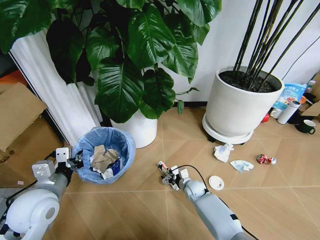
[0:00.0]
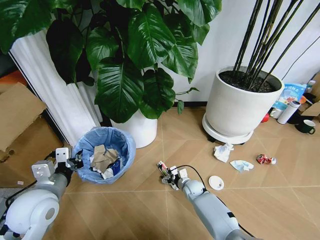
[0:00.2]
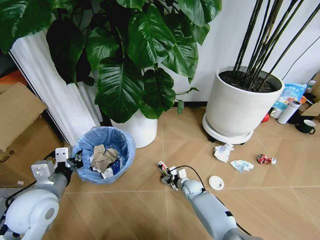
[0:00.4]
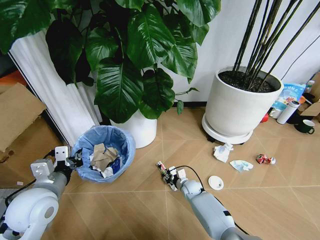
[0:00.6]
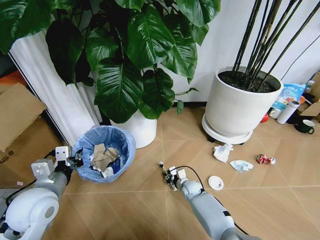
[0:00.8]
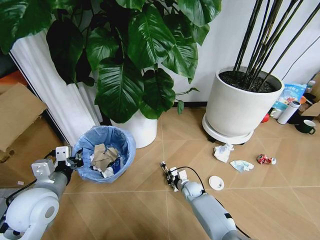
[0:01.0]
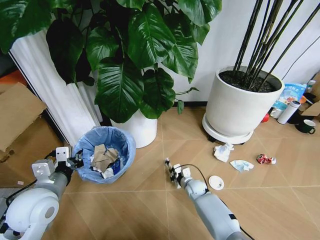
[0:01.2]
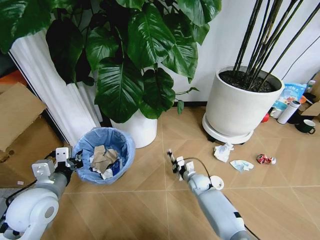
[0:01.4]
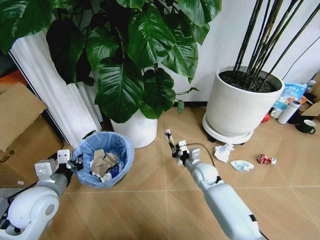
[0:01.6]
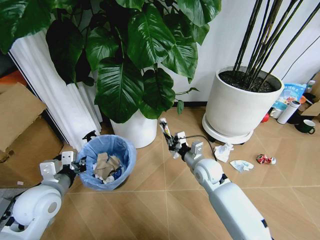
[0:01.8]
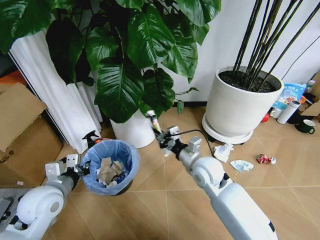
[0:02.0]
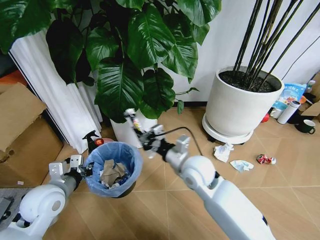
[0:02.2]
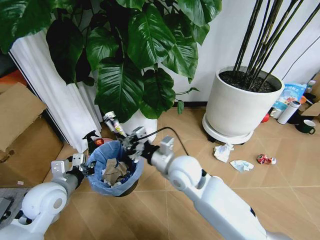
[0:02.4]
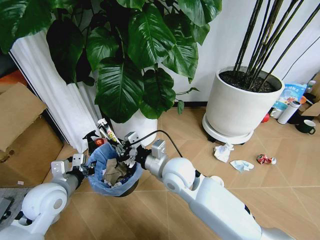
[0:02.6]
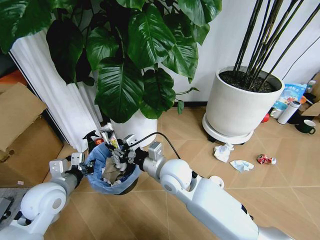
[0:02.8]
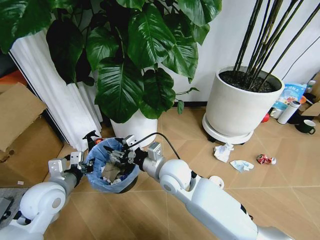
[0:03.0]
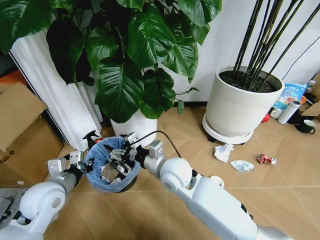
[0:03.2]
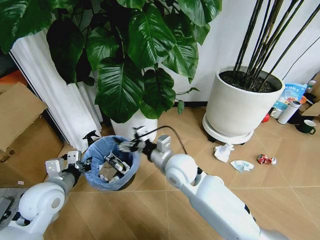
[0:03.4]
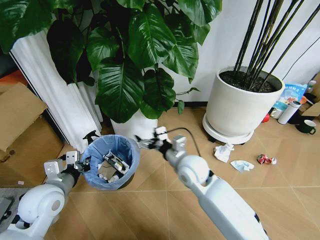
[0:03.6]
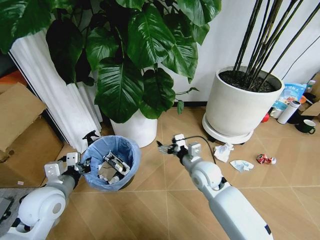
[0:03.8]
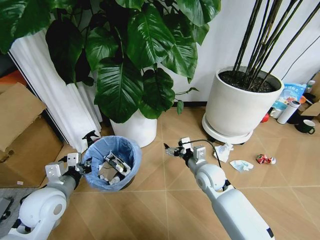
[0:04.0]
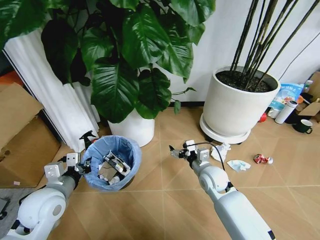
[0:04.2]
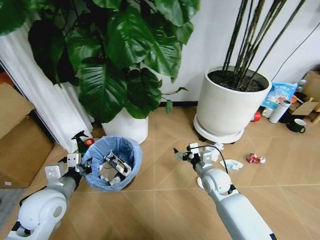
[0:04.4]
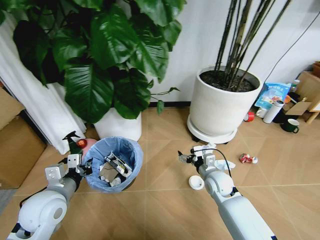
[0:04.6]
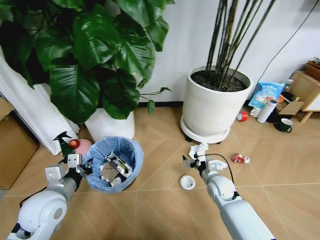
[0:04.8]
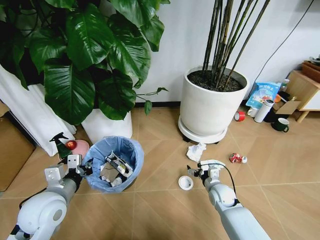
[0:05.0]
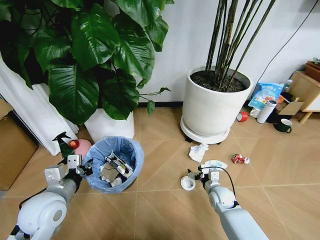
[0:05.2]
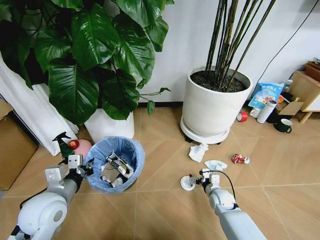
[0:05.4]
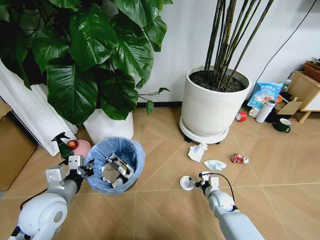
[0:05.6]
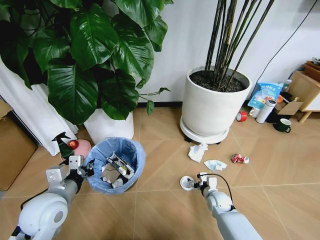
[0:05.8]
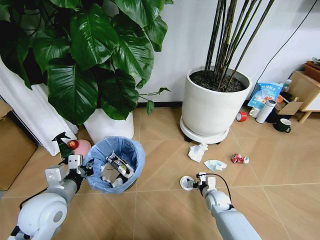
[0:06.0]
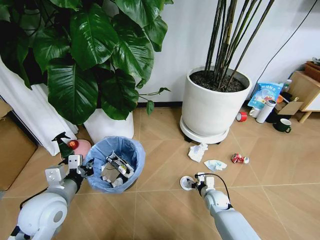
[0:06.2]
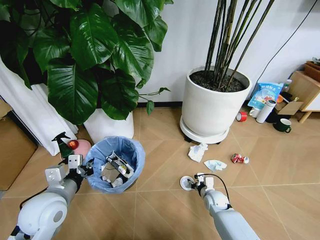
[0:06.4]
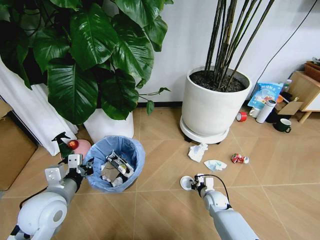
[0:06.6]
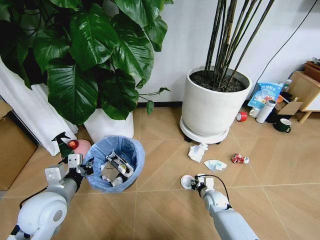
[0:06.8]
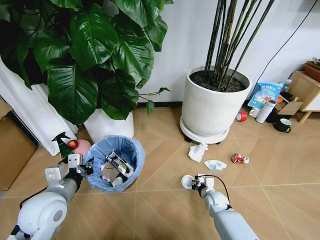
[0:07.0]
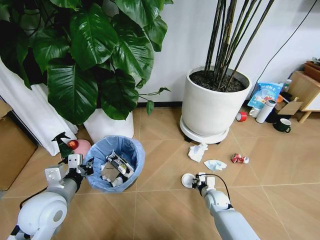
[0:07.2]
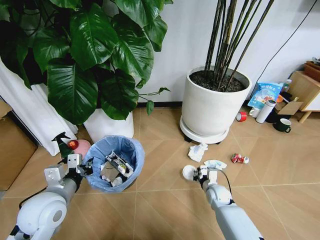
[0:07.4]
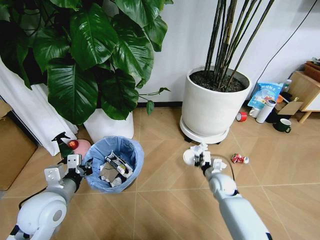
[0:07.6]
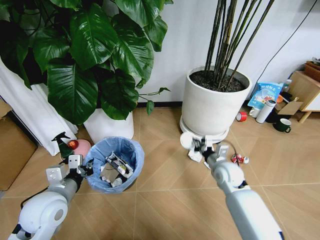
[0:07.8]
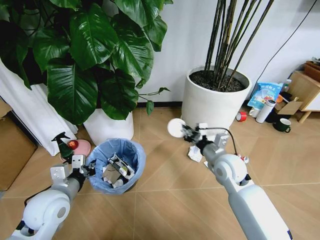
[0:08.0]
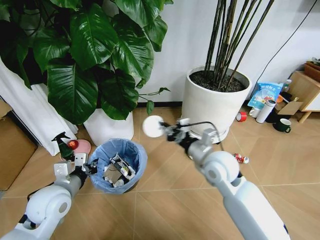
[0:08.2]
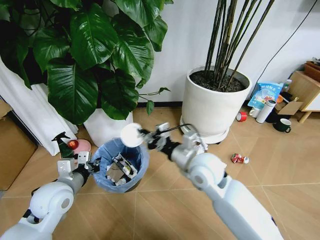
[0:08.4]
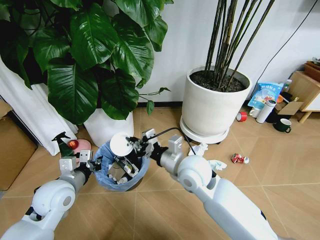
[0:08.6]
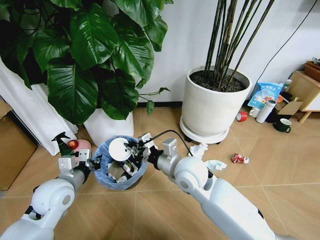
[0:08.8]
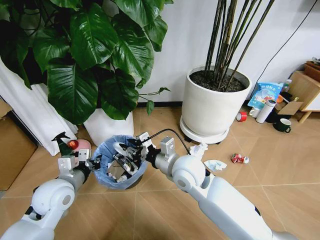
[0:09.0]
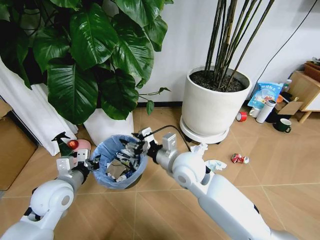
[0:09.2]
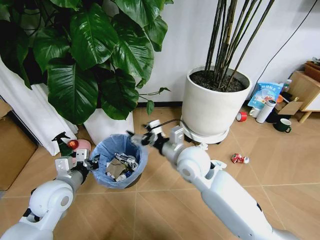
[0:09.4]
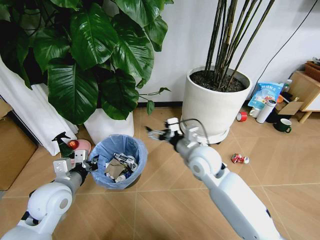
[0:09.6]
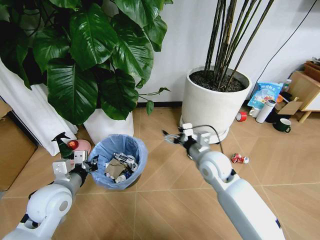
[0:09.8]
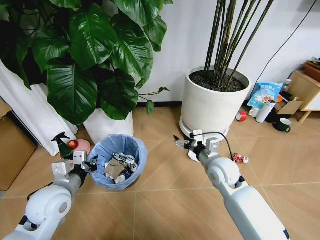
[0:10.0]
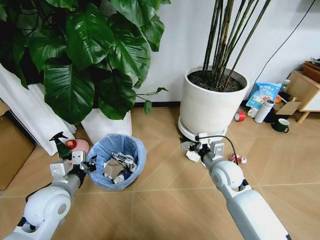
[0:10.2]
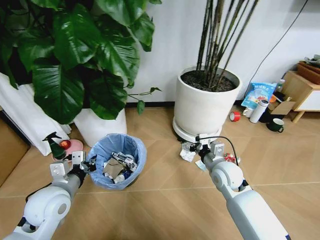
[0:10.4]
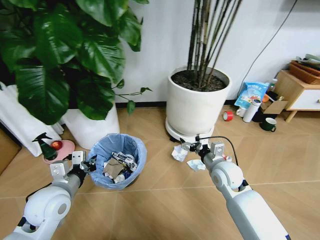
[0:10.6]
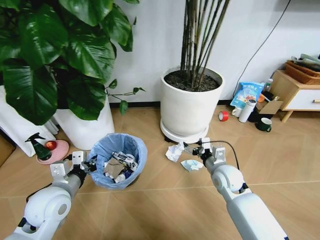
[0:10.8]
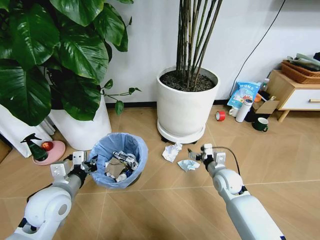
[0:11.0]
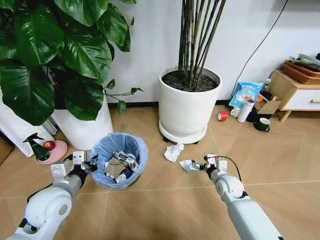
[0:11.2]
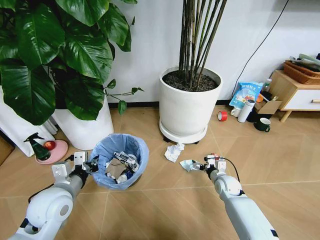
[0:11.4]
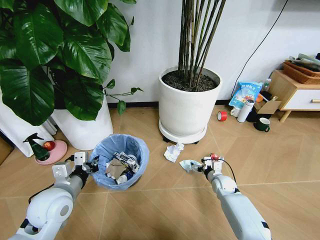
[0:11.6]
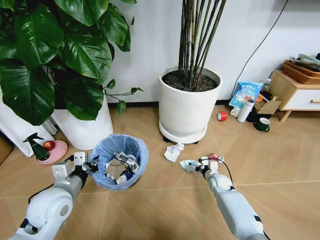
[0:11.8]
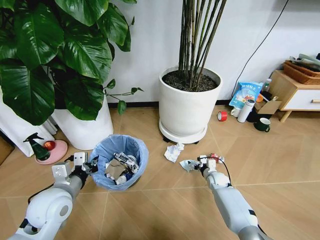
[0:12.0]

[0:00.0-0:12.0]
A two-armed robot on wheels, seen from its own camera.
Task of the whole recording: Pick up the trash bin and place the garbage on the floor into it.
0:00.0 to 0:01.6: The right gripper goes about 10 cm upward, and closes up.
0:01.6 to 0:03.0: The right gripper heads upward, to the left and backward, covering roughly 25 cm, and opens up.
0:03.0 to 0:04.4: The right gripper travels to the right and downward by about 20 cm, and opens up.
0:04.4 to 0:06.0: The right gripper heads downward, covering roughly 15 cm.
0:06.0 to 0:07.6: The right gripper travels upward by roughly 10 cm, and closes its fingers.
0:07.6 to 0:09.0: The right gripper moves upward and to the left, approximately 30 cm.
0:09.0 to 0:10.4: The right gripper shifts roughly 15 cm to the right and downward, and opens.
0:10.4 to 0:12.0: The right gripper goes about 20 cm downward.

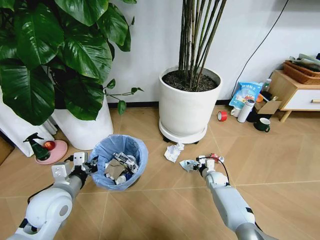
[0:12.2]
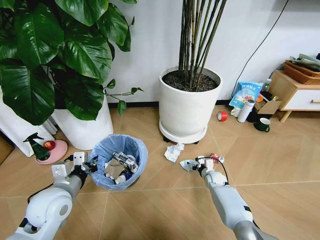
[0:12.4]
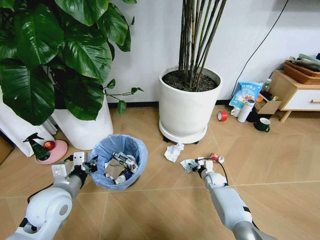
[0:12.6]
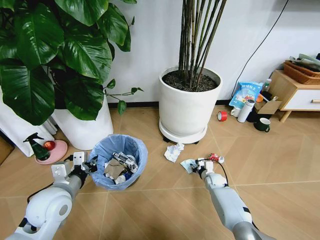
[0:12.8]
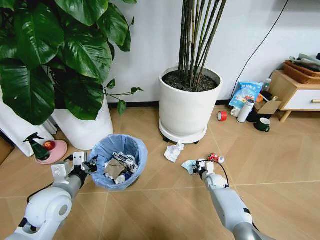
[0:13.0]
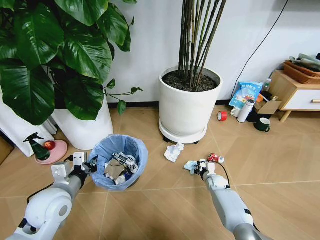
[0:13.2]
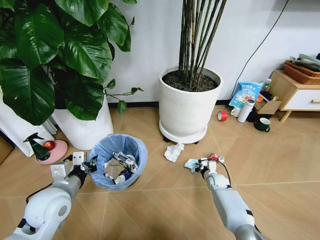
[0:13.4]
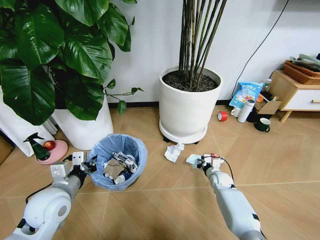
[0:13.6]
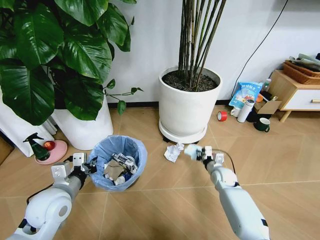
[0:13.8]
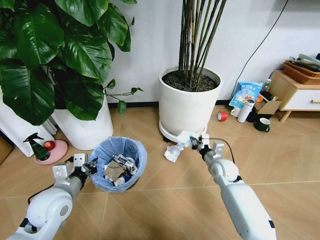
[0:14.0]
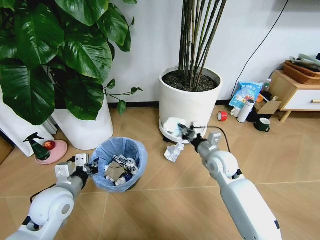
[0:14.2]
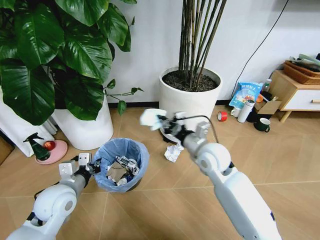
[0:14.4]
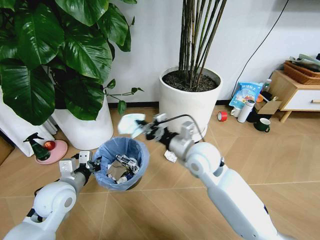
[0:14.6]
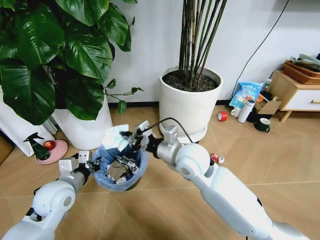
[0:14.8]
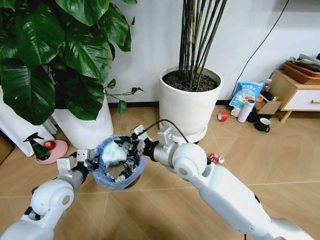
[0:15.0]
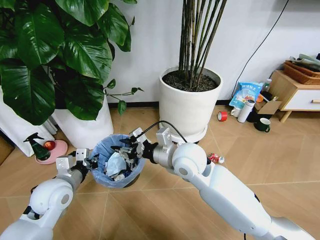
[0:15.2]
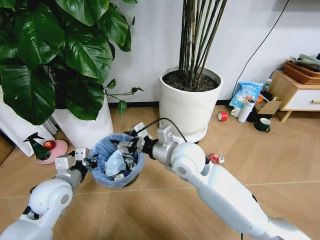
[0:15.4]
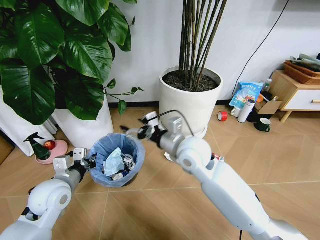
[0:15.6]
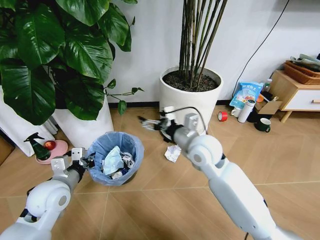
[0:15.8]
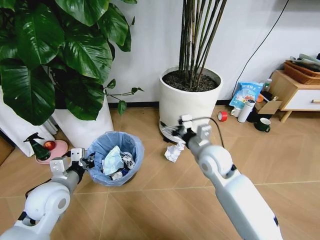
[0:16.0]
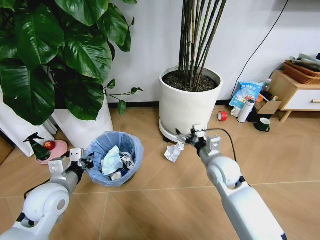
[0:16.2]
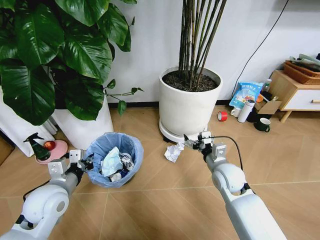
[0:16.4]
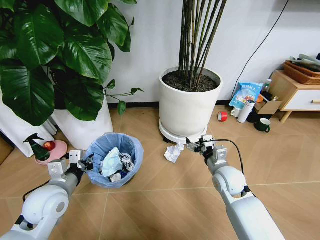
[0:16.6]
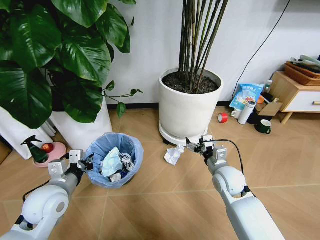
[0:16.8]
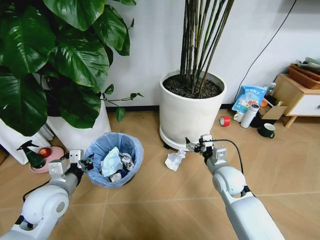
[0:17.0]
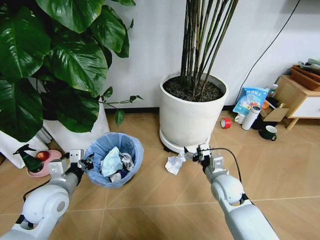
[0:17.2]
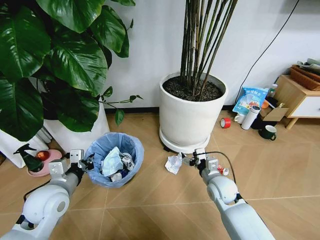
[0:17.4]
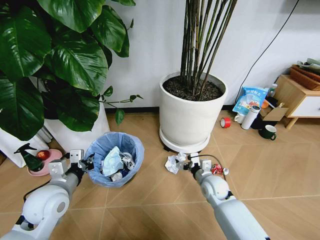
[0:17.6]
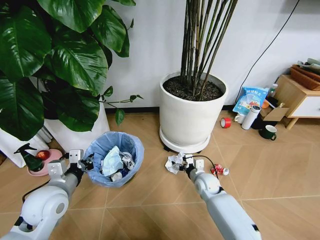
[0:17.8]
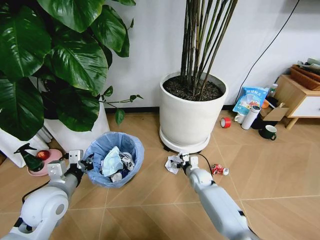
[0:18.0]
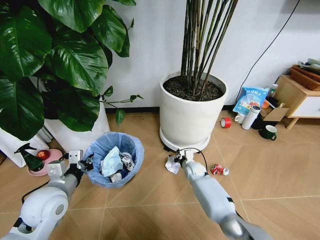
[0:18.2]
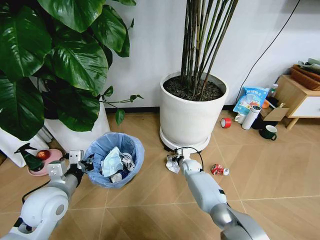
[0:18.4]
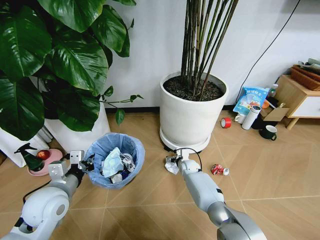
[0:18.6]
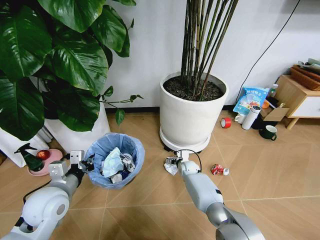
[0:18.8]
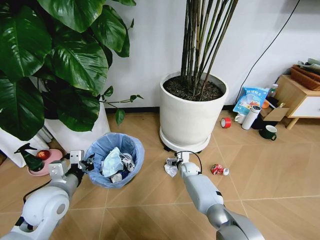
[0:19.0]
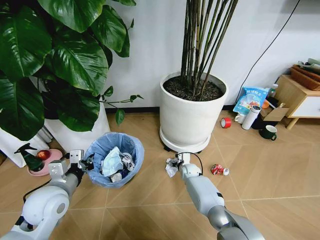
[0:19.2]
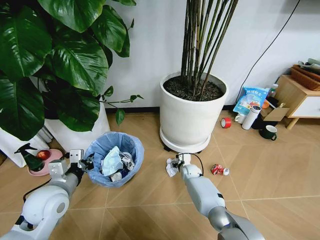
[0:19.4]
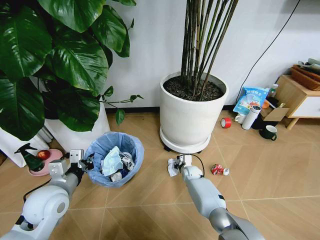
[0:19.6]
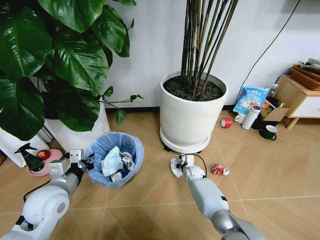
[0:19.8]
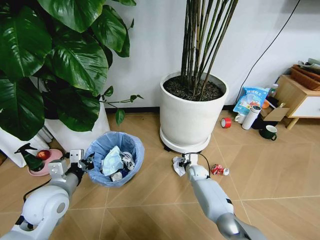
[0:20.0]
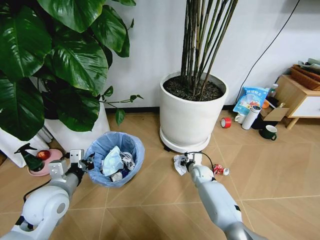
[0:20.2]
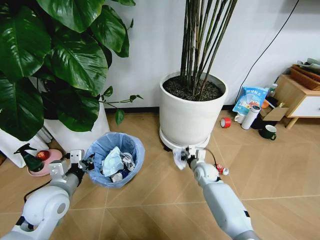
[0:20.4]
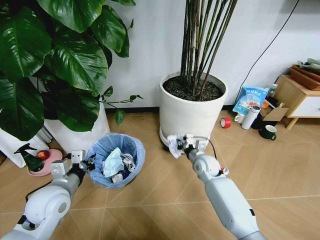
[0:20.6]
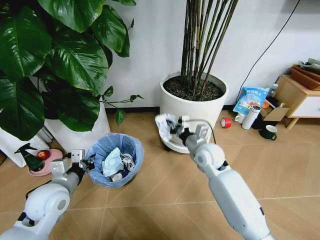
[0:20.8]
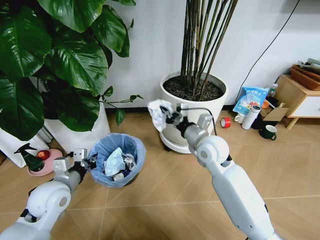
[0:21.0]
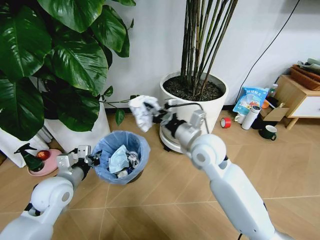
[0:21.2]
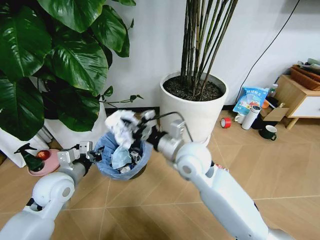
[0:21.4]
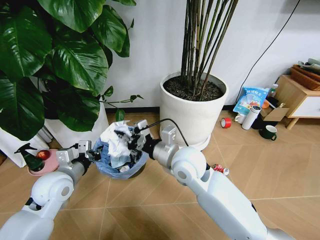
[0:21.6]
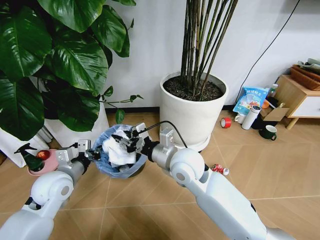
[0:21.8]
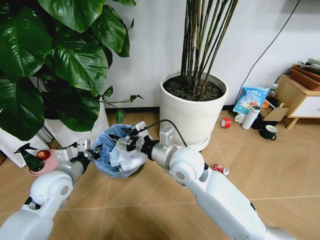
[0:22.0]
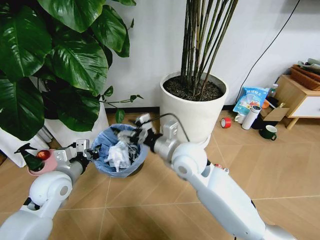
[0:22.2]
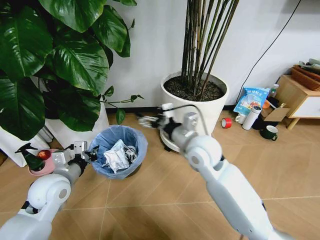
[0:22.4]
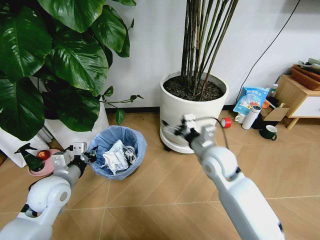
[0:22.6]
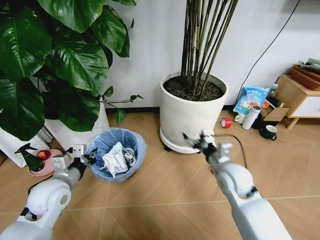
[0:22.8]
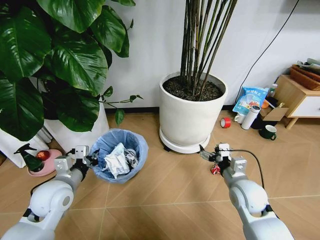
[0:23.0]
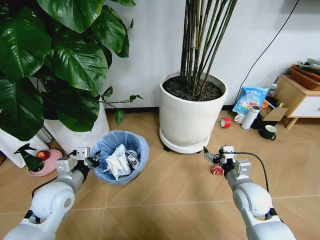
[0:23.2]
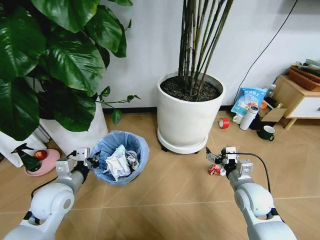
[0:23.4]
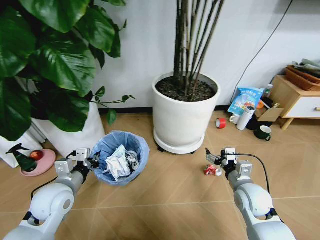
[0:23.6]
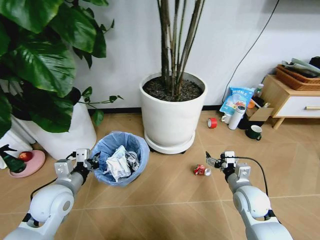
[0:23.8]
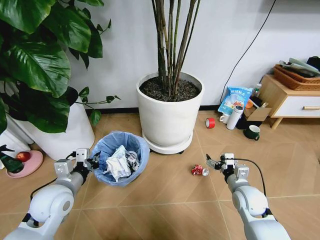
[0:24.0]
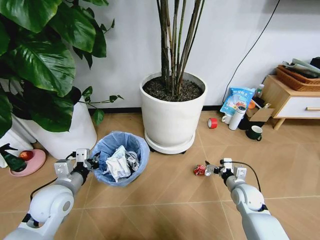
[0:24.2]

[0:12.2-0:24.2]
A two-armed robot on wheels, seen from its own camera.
Task of the whole recording: Pick up the trash bin and place the garbage on the floor into it.
0:12.2 to 0:13.8: The right gripper goes roughly 5 cm upward, and closes its fingers.
0:13.8 to 0:15.2: The right gripper is displaced upward and to the left by approximately 35 cm, and opens.
0:15.2 to 0:16.6: The right gripper shifts roughly 20 cm to the right and downward, and opens up.
0:16.6 to 0:18.2: The right gripper moves downward and forward, roughly 20 cm.
0:18.2 to 0:19.8: The right gripper closes its fingers.
0:19.8 to 0:21.2: The right gripper is displaced upward by roughly 35 cm.
0:21.2 to 0:22.6: The right gripper moves about 5 cm, and opens its fingers.
0:22.6 to 0:24.2: The right gripper travels downward and to the right by approximately 25 cm.
